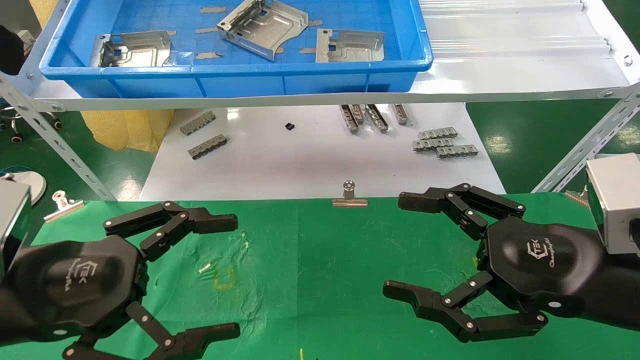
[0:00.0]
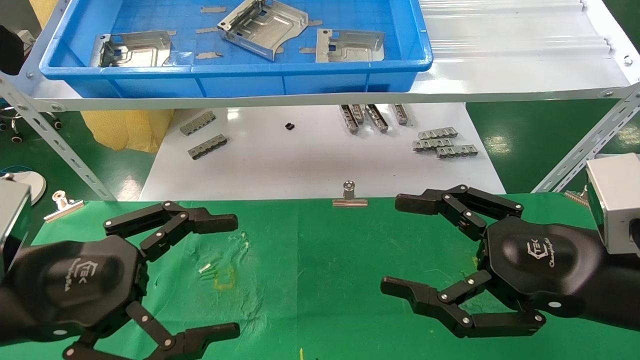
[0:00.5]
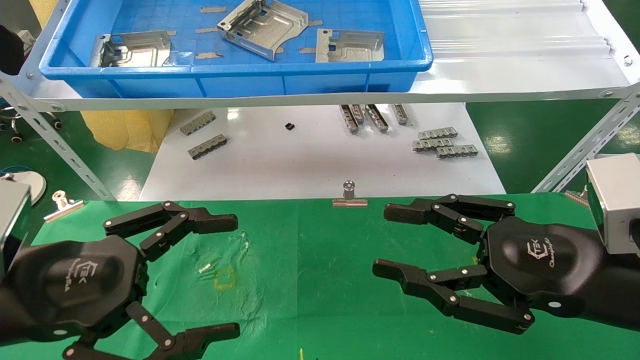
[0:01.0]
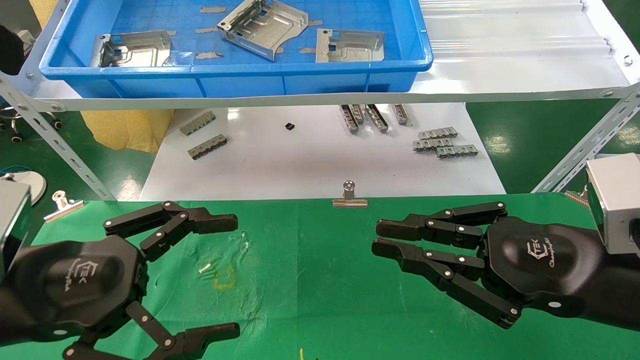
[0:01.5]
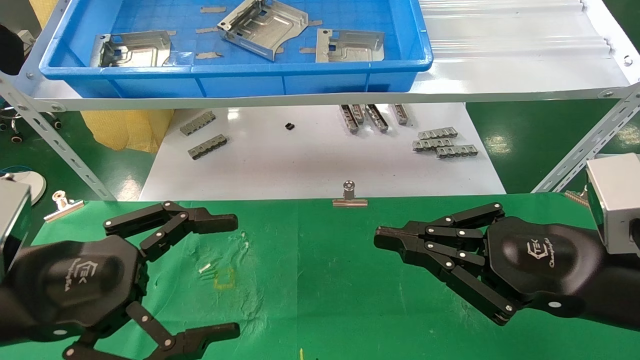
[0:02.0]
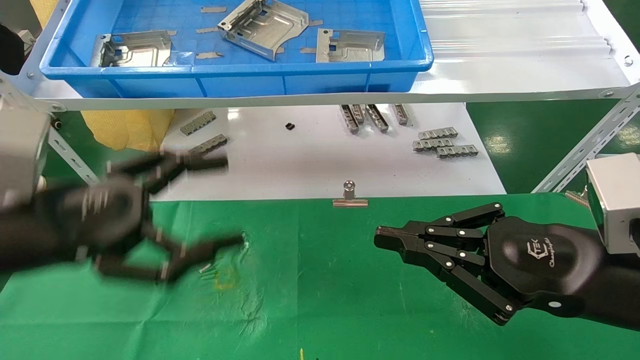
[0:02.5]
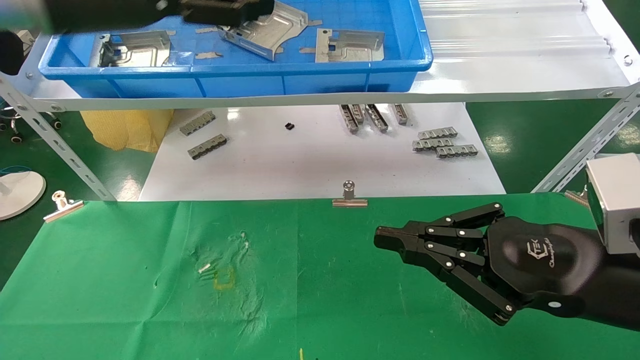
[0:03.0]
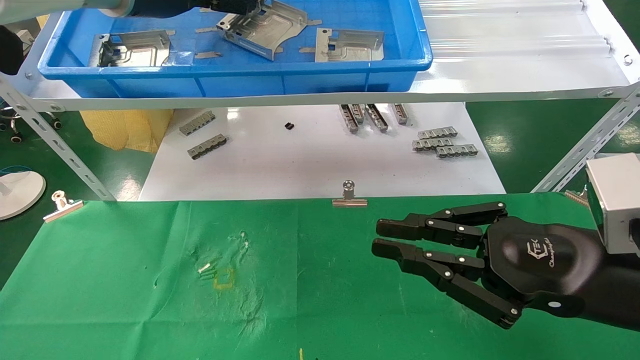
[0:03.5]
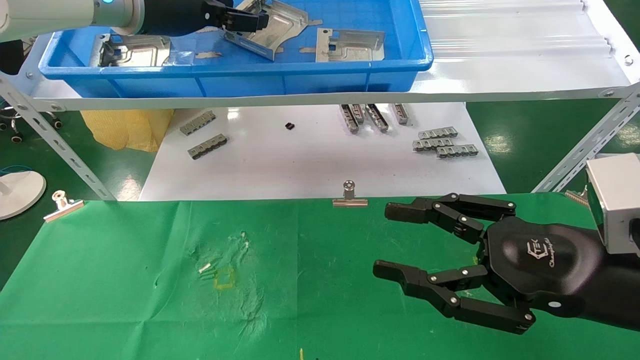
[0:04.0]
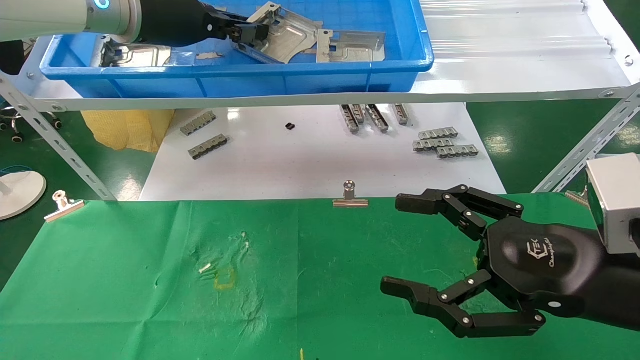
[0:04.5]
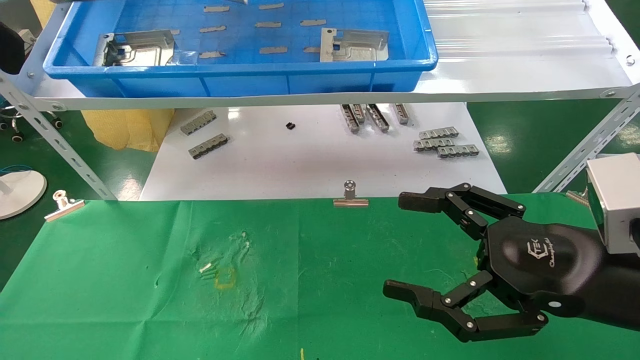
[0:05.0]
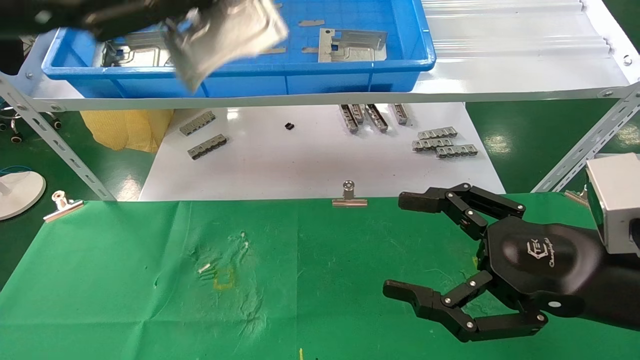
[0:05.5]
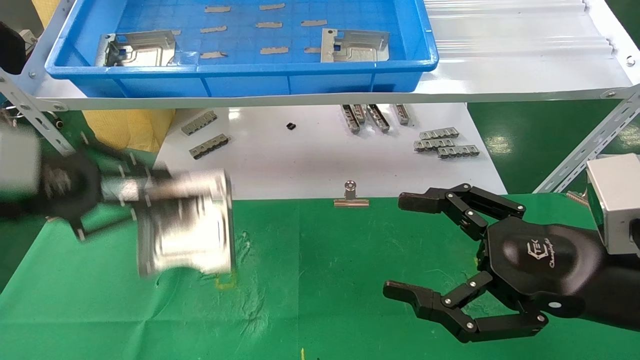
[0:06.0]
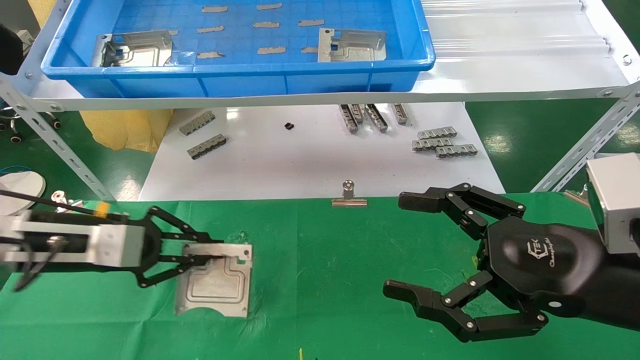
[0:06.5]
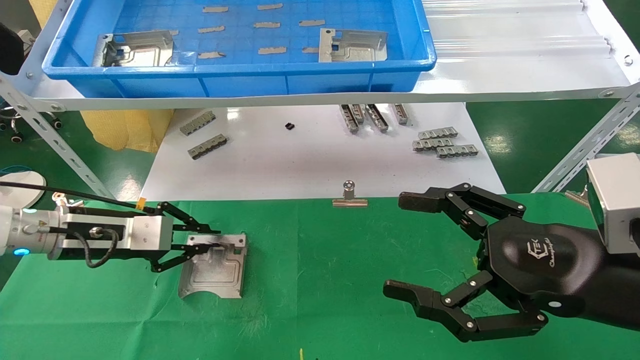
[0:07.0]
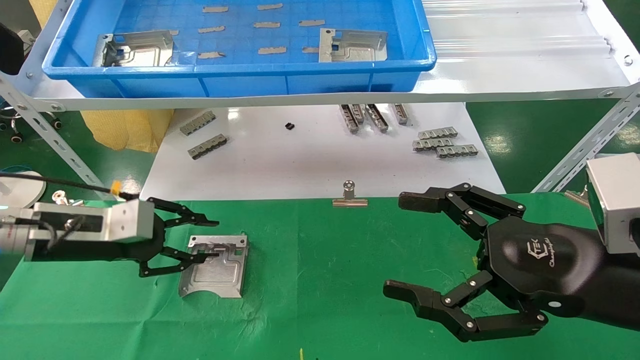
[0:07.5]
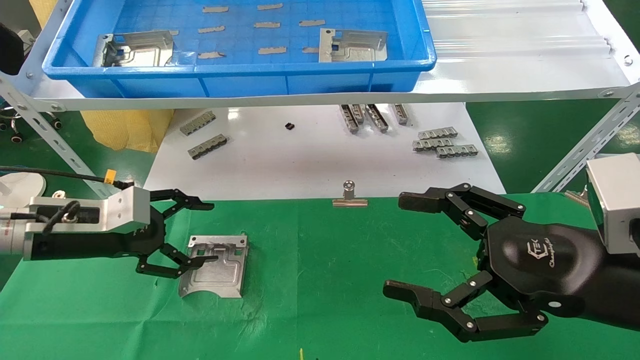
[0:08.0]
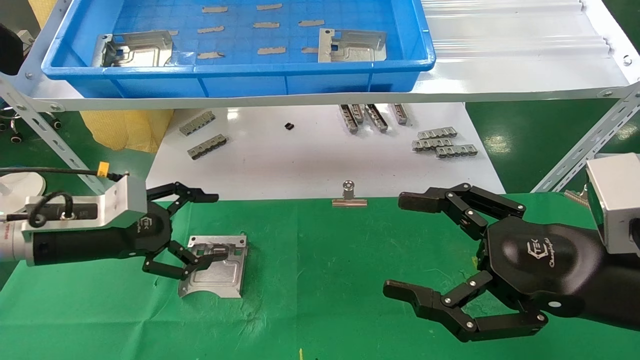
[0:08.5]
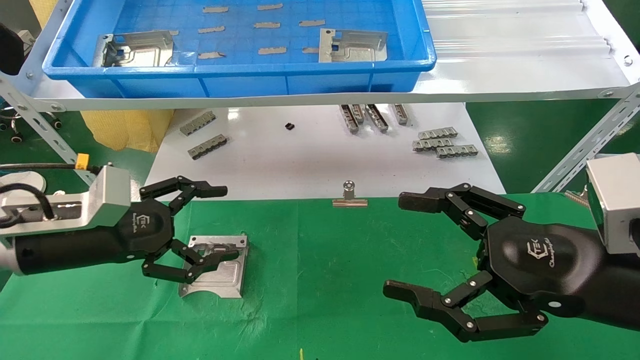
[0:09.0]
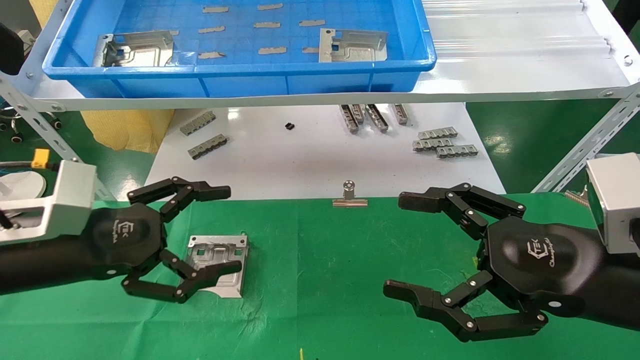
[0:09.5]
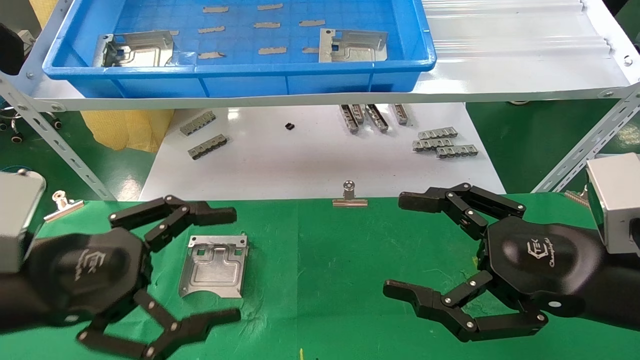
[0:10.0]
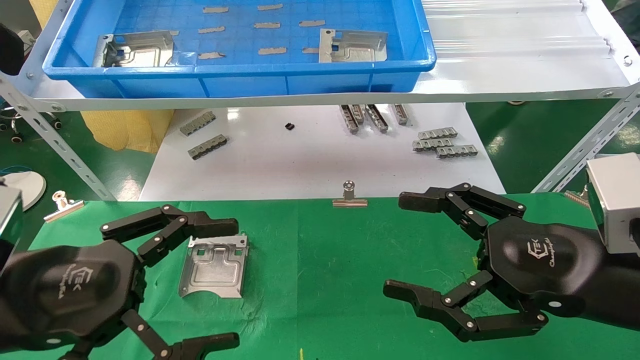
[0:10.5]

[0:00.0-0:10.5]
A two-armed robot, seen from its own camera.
Task of the whole recording: use the mechanical arm to pick up the parts and place them on the table.
Step, 0:01.5 to 0:03.5: Pick up the hard drive bracket from the feeding area.
Step, 0:04.0 to 0:07.0: Place the hard drive bracket into the box.
0:00.0 to 0:02.0: The right gripper closes its fingers.
0:02.0 to 0:04.0: The left gripper is displaced upward and forward by about 35 cm, while the right gripper opens up.
0:04.0 to 0:06.5: The right gripper opens, while the left gripper shifts roughly 30 cm downward and to the left, and closes.
0:06.5 to 0:08.5: The left gripper opens up.
0:08.5 to 0:10.5: The left gripper heads backward, covering roughly 15 cm.

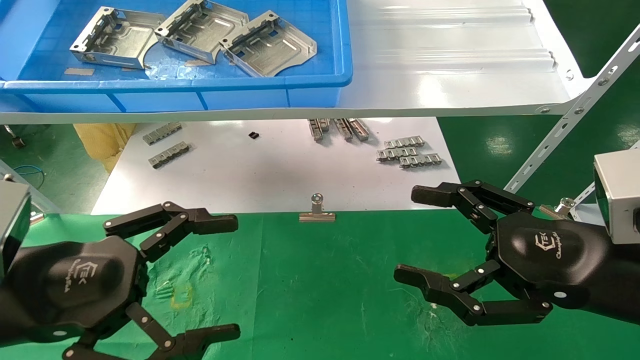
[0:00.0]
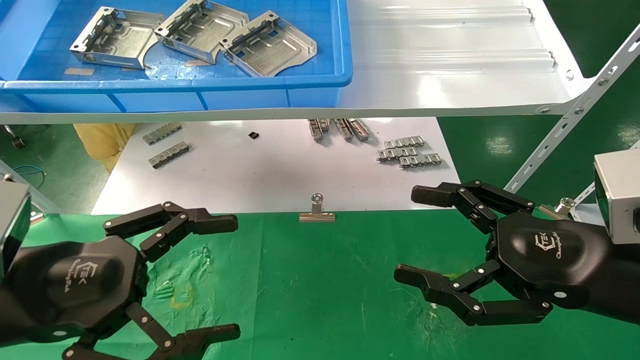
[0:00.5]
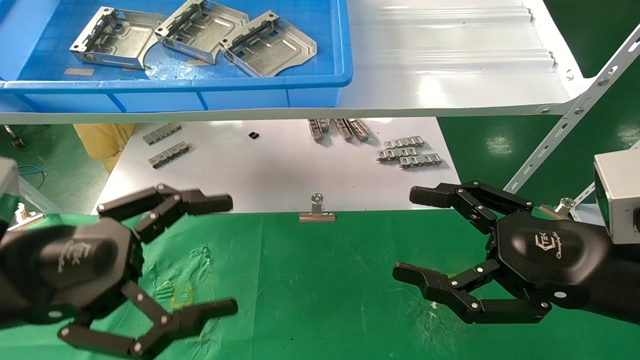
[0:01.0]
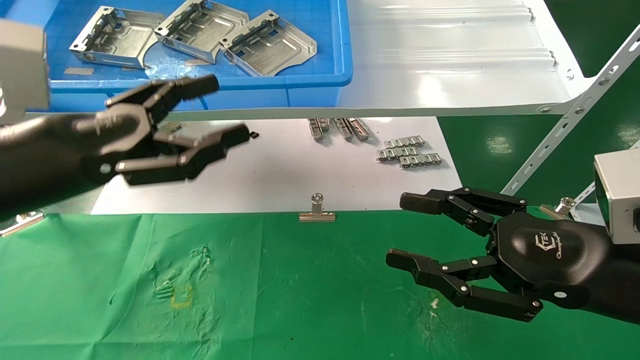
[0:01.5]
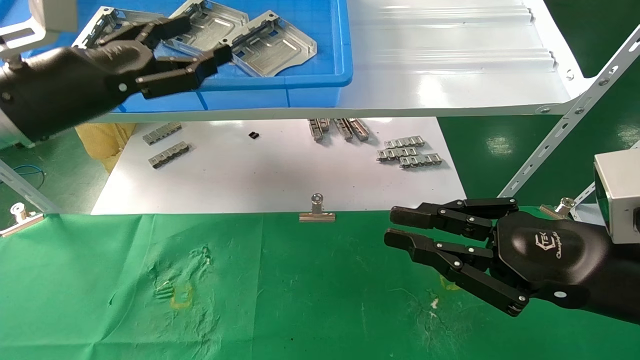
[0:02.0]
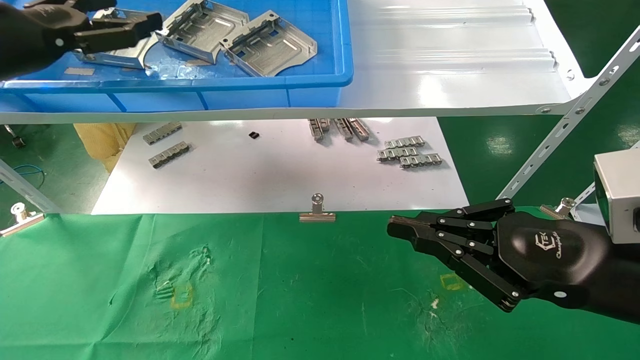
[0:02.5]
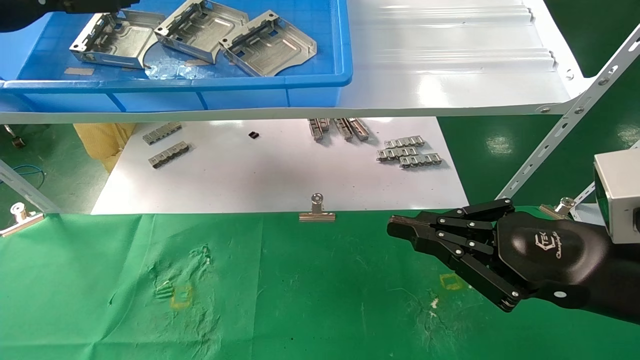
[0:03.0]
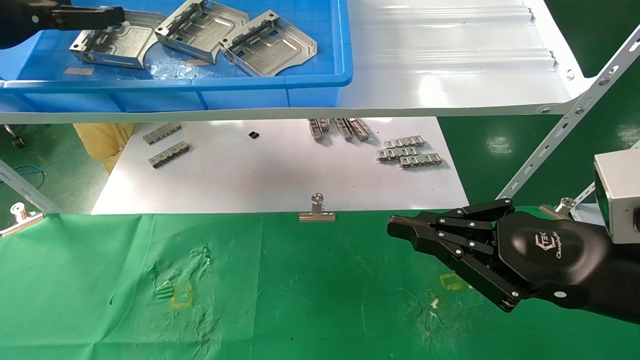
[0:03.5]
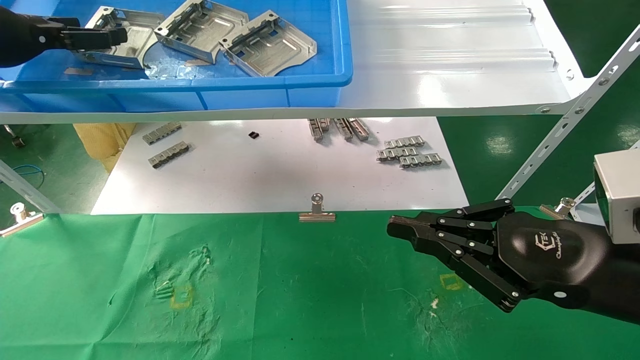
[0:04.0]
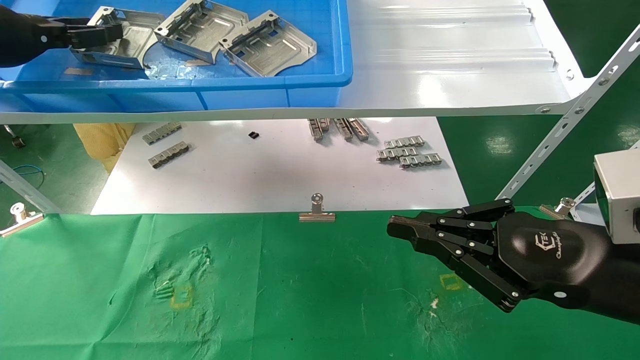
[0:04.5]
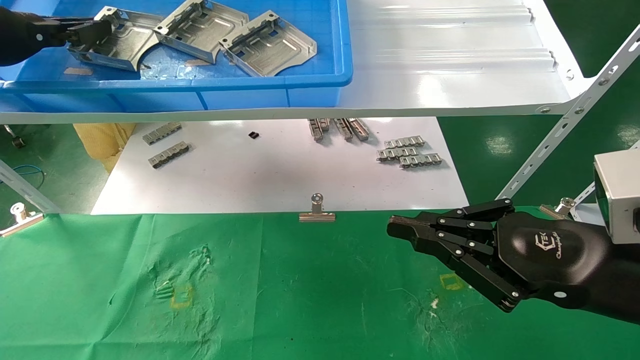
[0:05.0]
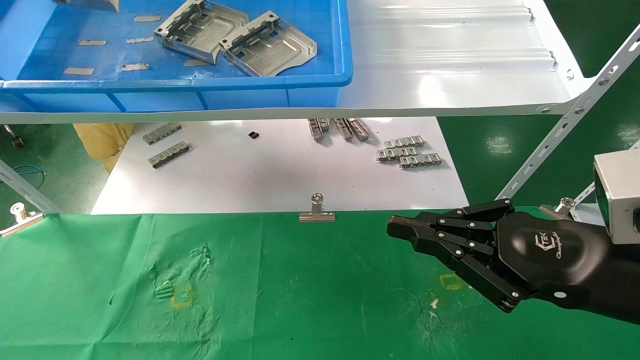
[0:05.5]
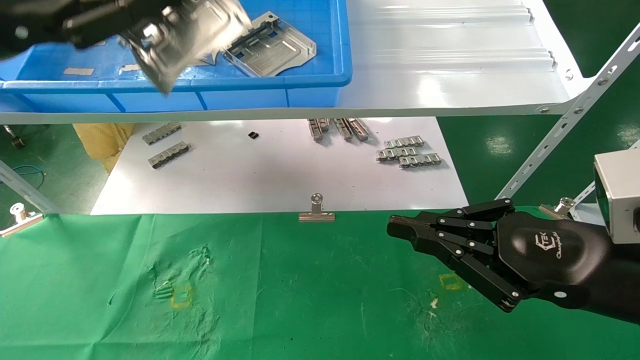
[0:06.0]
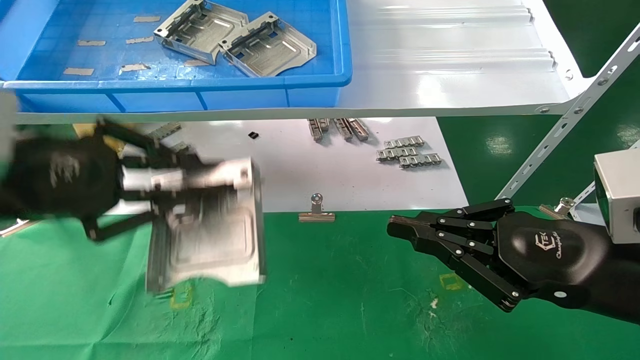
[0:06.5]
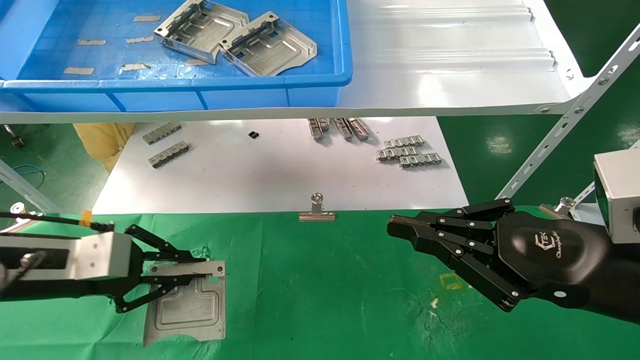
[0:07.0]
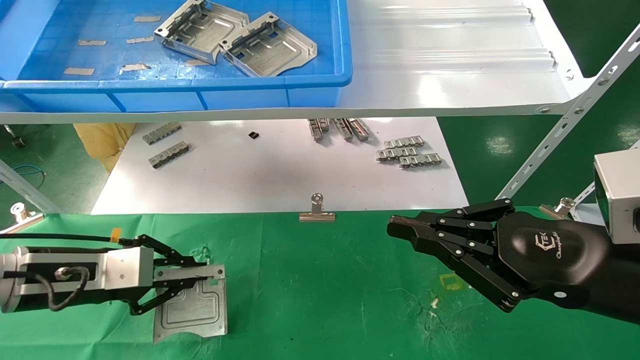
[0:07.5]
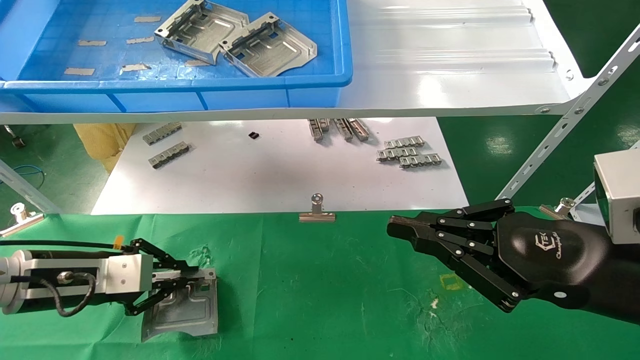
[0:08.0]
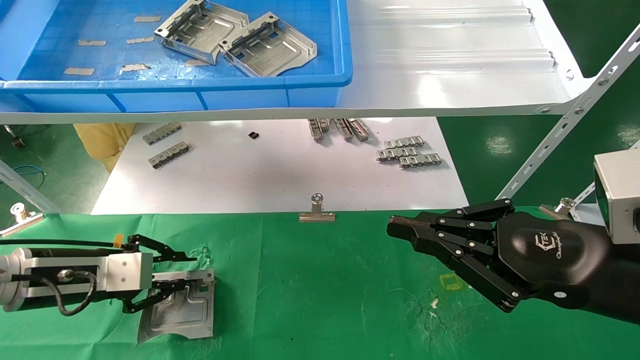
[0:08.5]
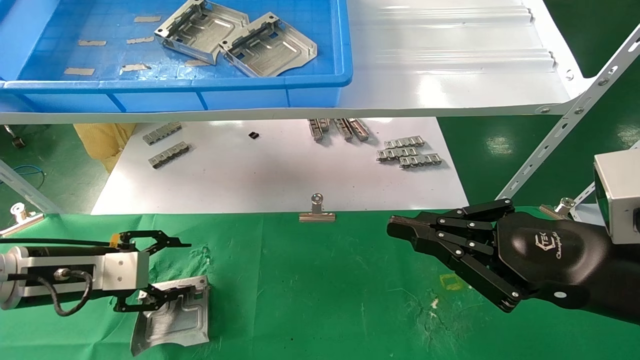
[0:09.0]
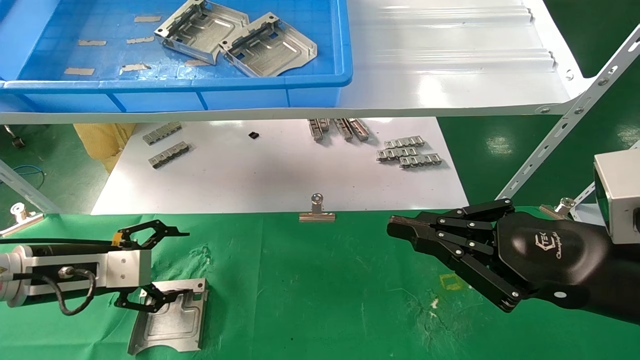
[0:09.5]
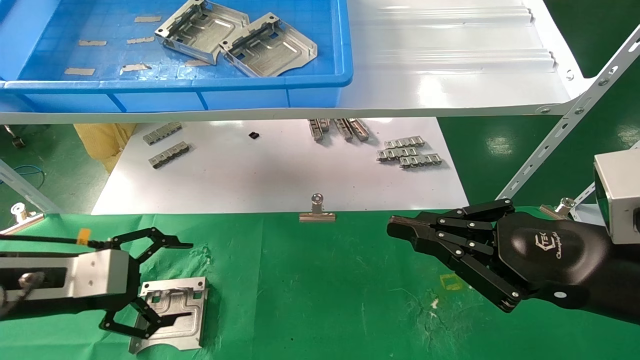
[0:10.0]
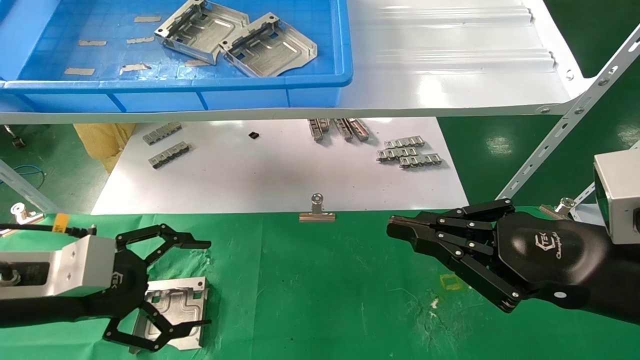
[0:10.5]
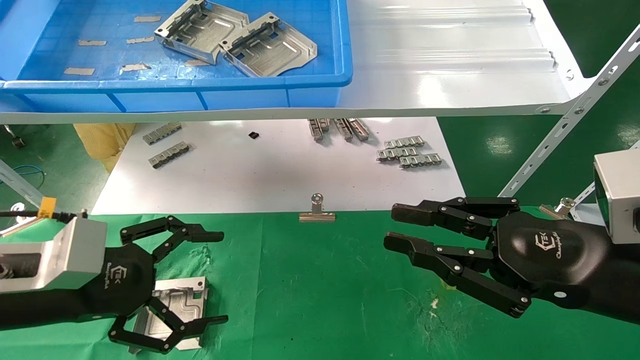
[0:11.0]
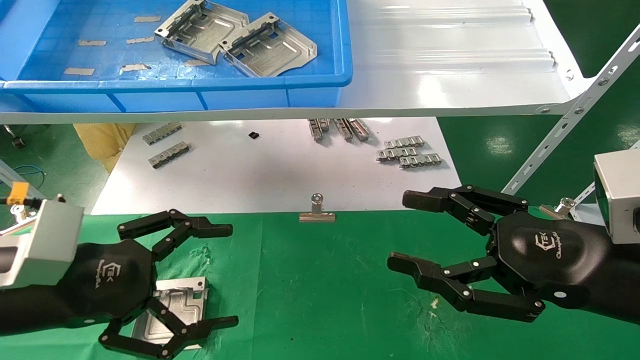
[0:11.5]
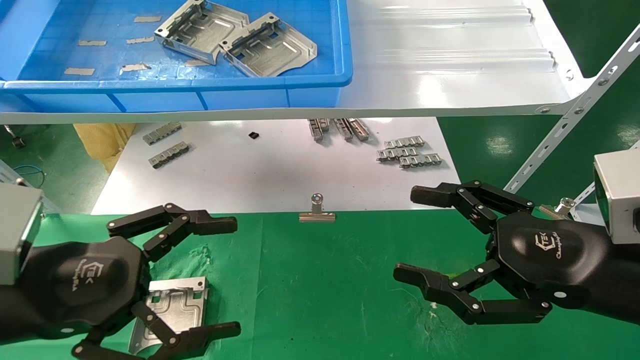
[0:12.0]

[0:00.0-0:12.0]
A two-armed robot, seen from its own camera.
Task of the whole recording: use the mechanical arm to pick up the parts and place them on the table.
Step, 0:01.5 to 0:04.5: Pick up the hard drive bracket from the feeding area.
Step, 0:05.0 to 0:08.0: Place the hard drive bracket into the box.
0:00.0 to 0:02.0: The right gripper closes up; the left gripper travels forward and upward by some 20 cm.
0:02.0 to 0:04.0: The left gripper travels to the left, upward and forward by about 15 cm.
0:04.0 to 0:06.0: The left gripper is displaced backward and to the right by roughly 15 cm, and closes.
0:06.0 to 0:08.0: The left gripper shifts approximately 25 cm downward.
0:08.0 to 0:10.0: The left gripper opens.
0:10.0 to 0:12.0: The left gripper travels backward and to the right by roughly 10 cm; the right gripper opens.
